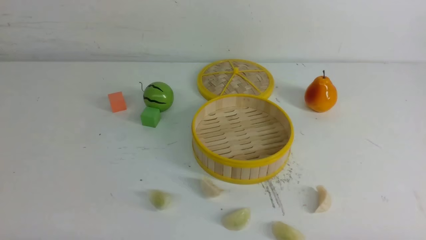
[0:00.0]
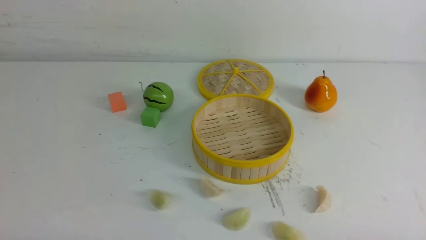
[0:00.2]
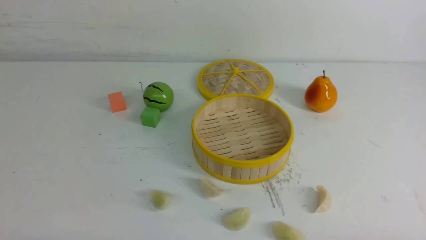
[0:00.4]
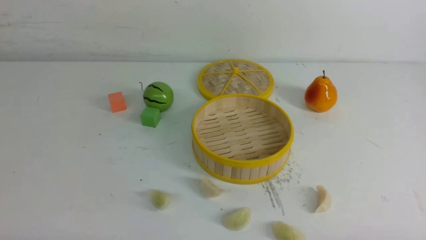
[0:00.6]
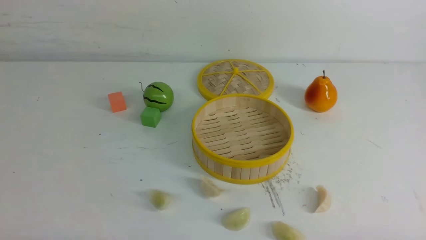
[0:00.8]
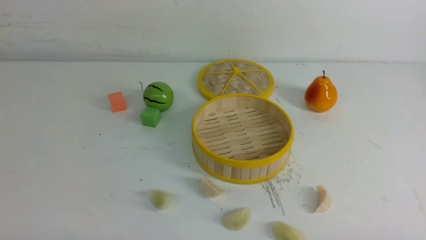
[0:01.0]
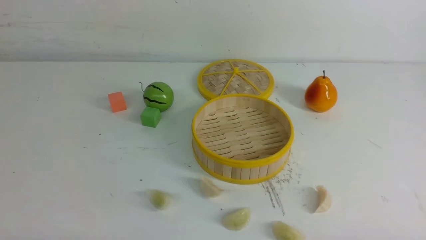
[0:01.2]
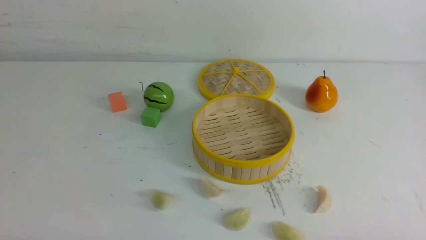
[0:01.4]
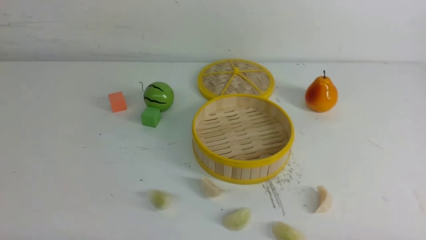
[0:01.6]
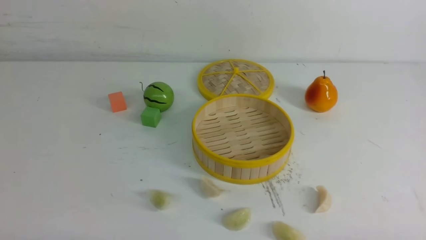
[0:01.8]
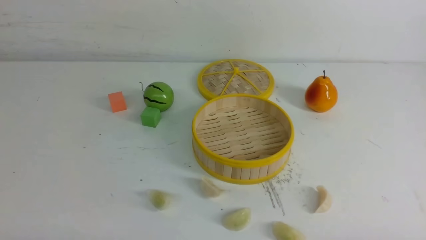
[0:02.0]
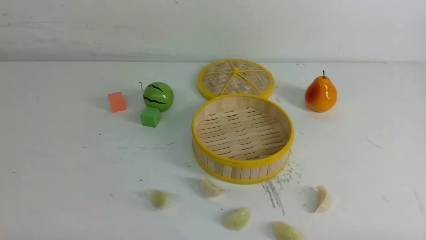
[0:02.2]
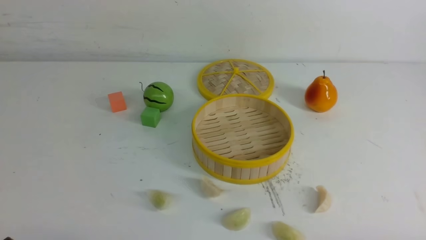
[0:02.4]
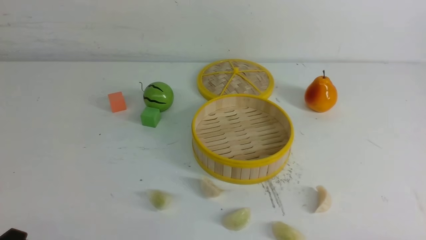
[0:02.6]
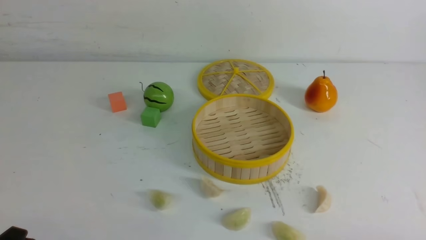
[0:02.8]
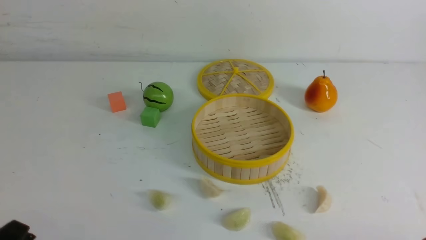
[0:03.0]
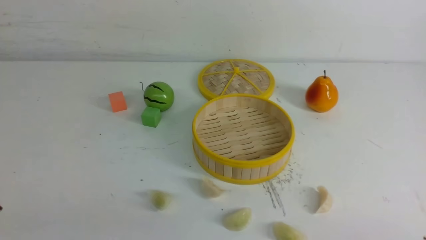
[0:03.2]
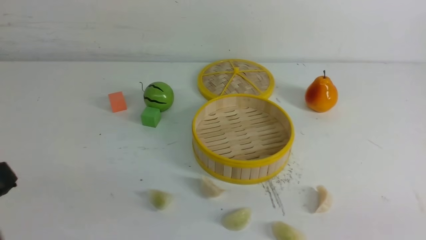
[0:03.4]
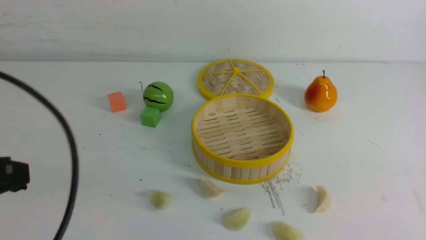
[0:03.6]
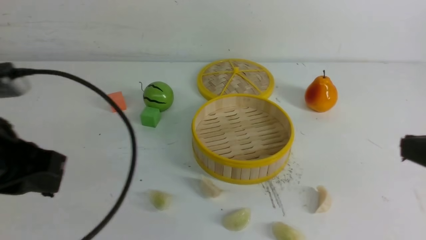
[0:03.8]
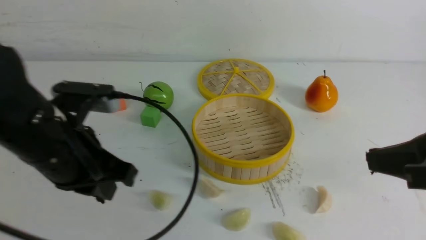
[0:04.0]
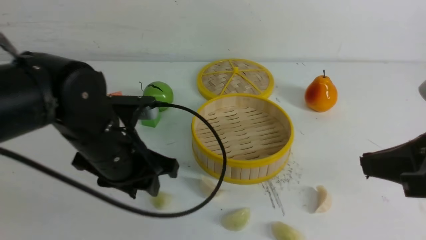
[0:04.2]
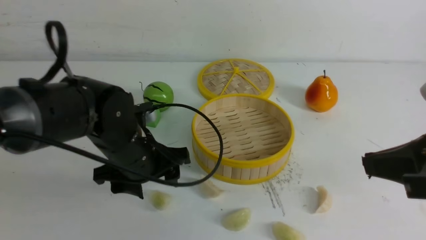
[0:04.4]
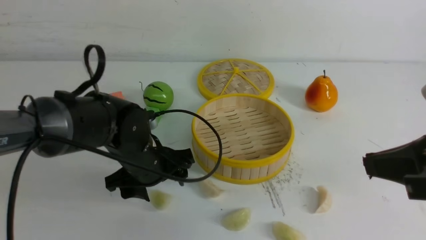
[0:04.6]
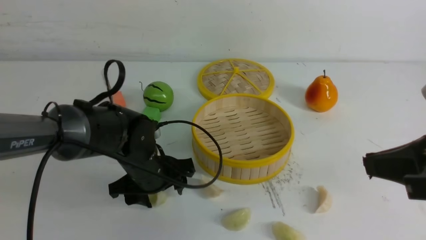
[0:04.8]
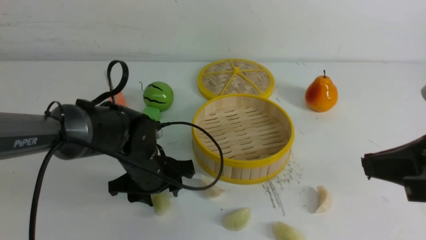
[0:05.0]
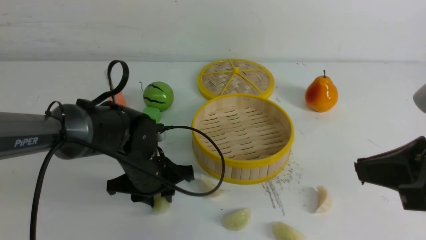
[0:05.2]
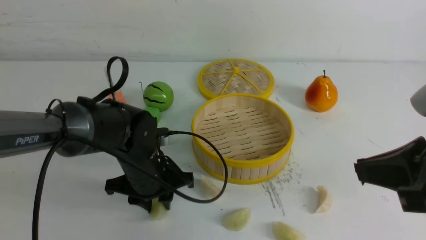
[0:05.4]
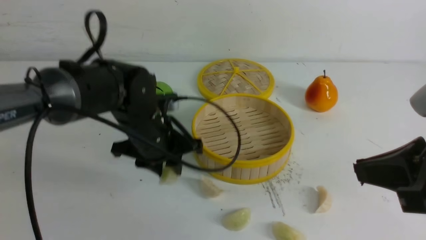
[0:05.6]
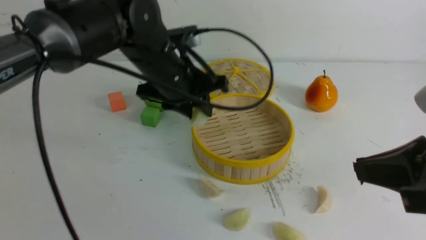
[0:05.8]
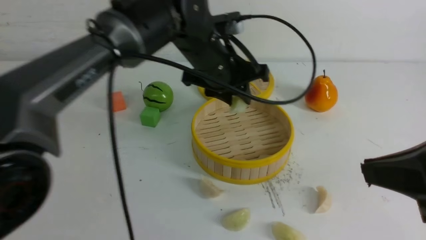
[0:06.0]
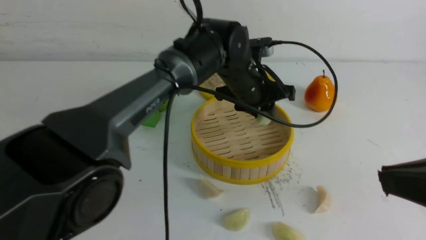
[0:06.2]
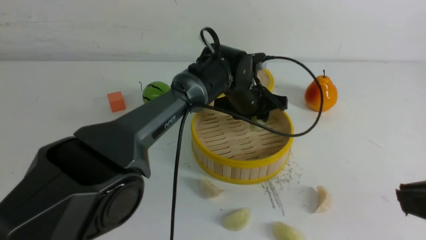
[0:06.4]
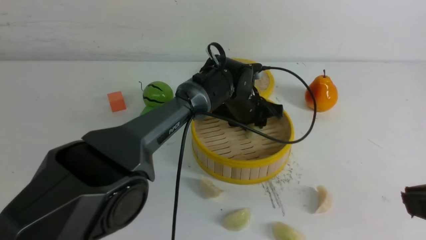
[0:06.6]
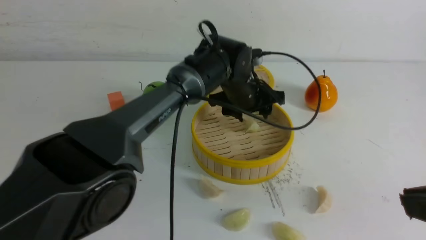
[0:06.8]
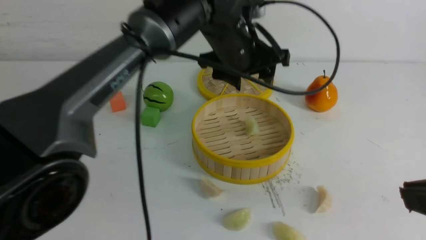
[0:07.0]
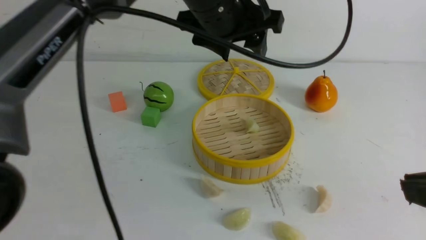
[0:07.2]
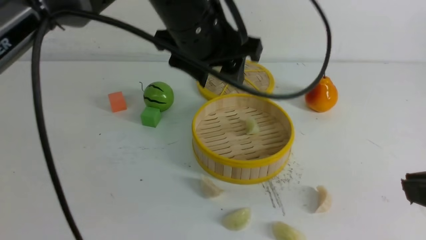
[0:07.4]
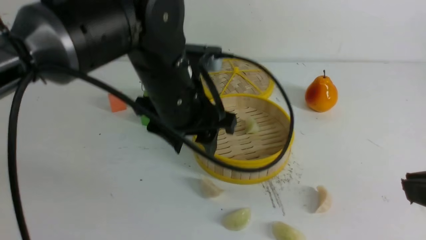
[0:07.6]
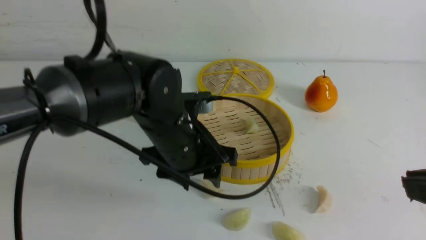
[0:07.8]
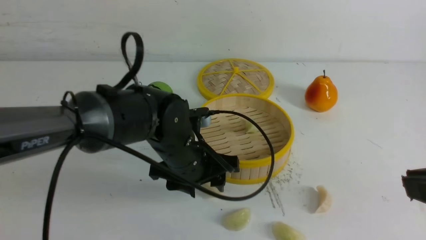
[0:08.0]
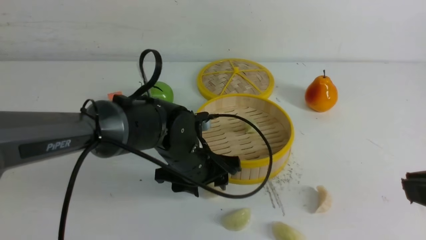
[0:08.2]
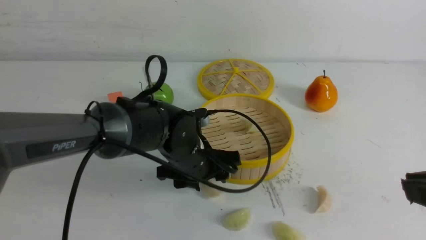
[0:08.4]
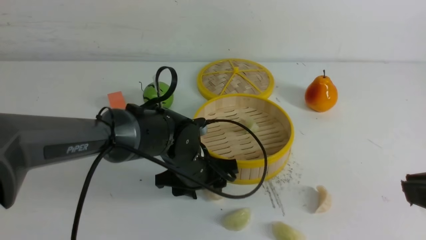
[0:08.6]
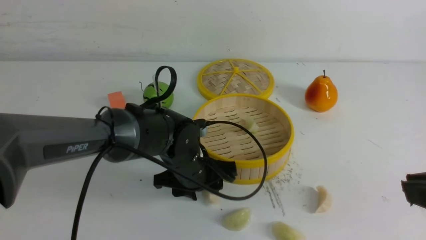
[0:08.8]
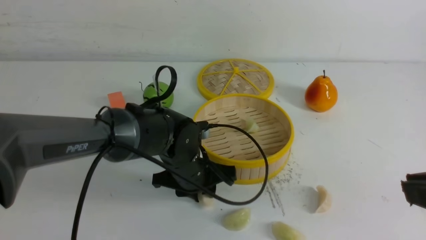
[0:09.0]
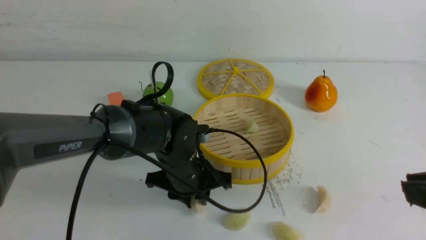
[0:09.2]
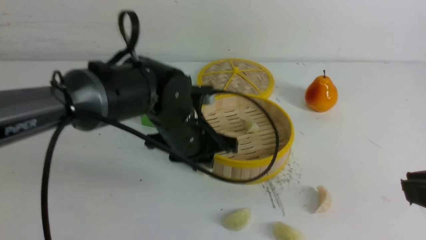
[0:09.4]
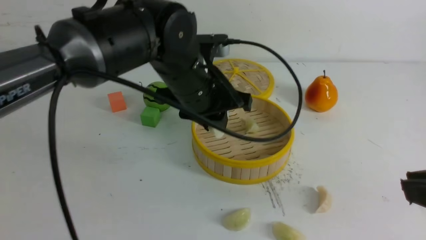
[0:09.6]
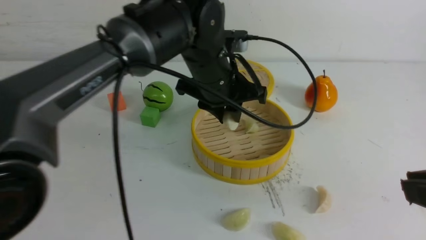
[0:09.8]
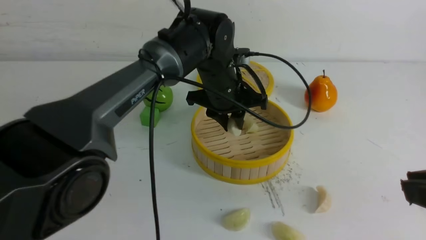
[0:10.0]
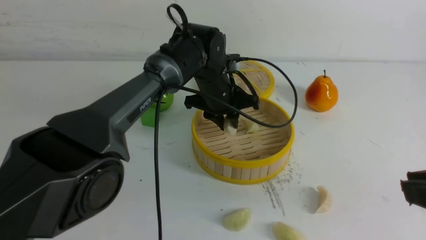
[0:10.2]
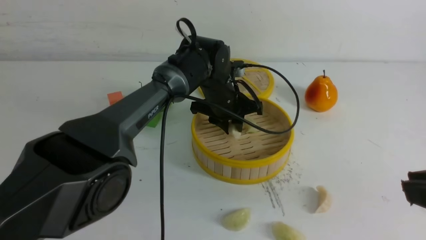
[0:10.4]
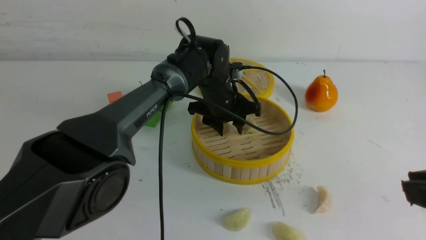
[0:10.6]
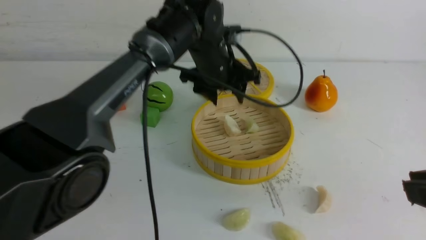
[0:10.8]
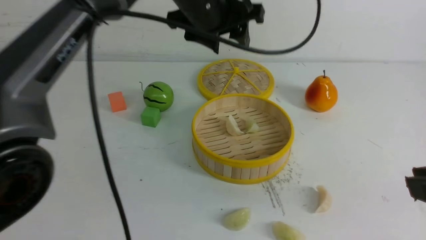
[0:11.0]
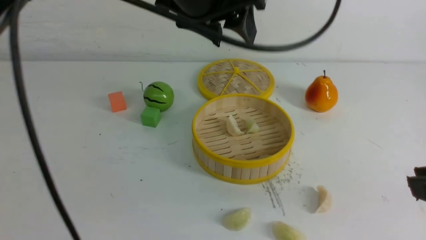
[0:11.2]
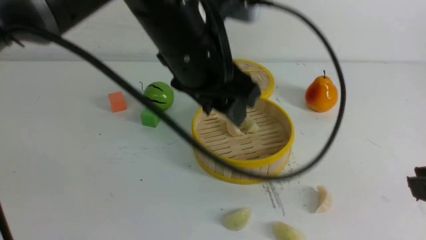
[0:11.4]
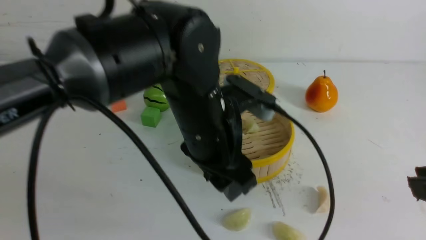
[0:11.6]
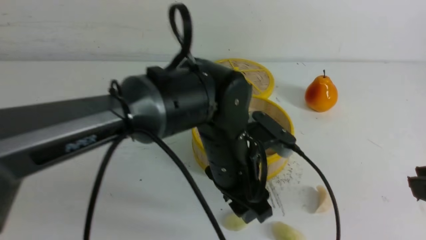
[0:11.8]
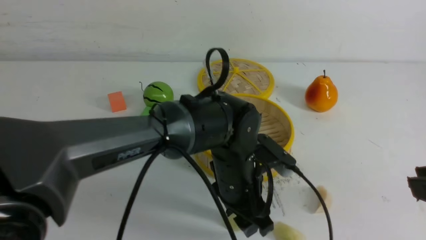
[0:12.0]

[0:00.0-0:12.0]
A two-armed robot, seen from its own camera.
Task of the whole recording: put the dumplings into the steamer on the white table.
Step, 0:00.0 to 0:05.4: use the left arm to grab a dumpling.
Step, 0:05.6 to 0:06.6: use the left arm to put the dumpling into the steamer.
Step, 0:06.8 to 0:09.2: use the left arm to grab a dumpling.
Step, 0:09.4 to 0:10.6: use the left arm to put the dumpling into the steamer.
0:00.0 to 0:01.6: Both grippers stay put.
0:03.0 to 0:04.4: The left gripper heads forward and to the right, covering roughly 30 cm, and opens. Meanwhile the right gripper travels upward and forward by some 20 cm, and closes.
0:04.4 to 0:06.0: The left gripper heads to the right, forward and upward, covering roughly 15 cm, and closes.
0:06.0 to 0:07.6: The left gripper swings up and down, about 20 cm each way, with 2 reversals, and opens up.
0:07.6 to 0:09.0: The left gripper is displaced downward by approximately 15 cm, and closes up.
0:09.0 to 0:10.4: The left gripper shifts approximately 15 cm forward.
0:10.4 to 0:12.0: The left gripper is displaced backward by approximately 15 cm, and goes upward and returns, about 20 cm each way.

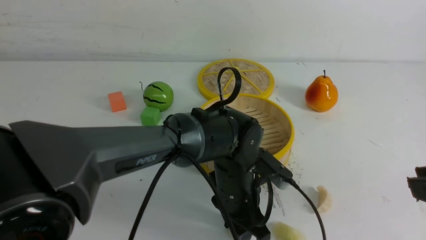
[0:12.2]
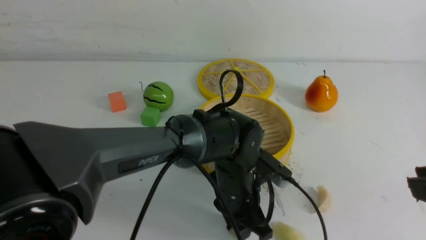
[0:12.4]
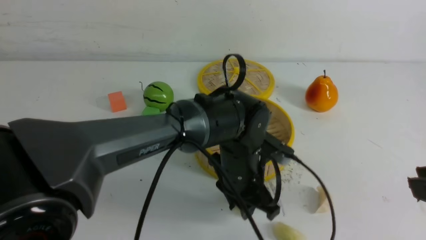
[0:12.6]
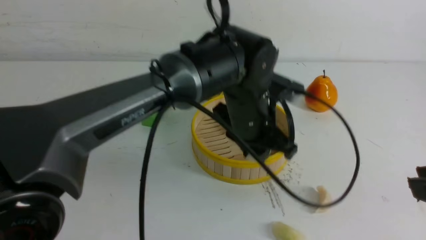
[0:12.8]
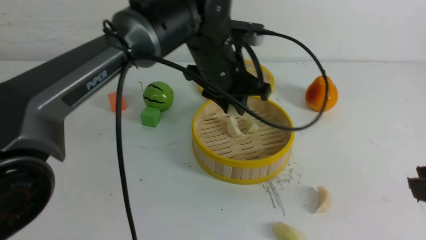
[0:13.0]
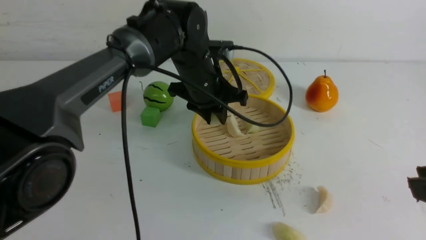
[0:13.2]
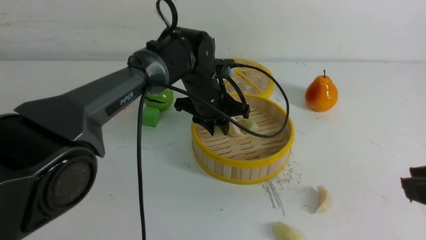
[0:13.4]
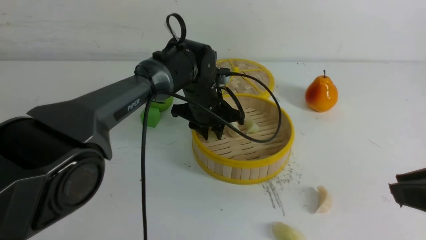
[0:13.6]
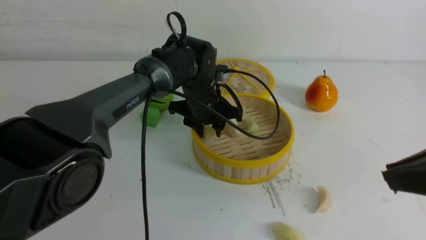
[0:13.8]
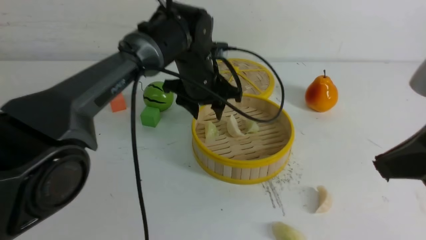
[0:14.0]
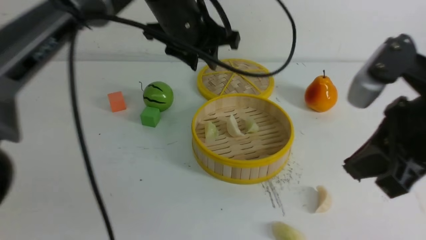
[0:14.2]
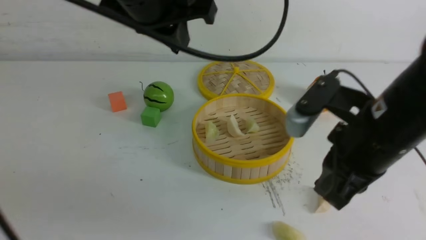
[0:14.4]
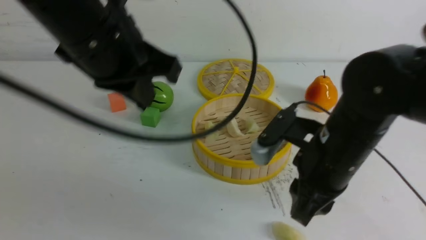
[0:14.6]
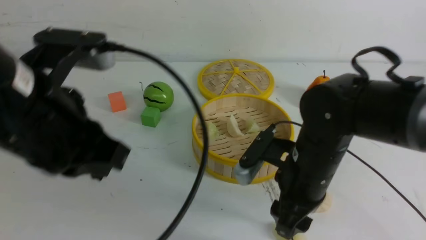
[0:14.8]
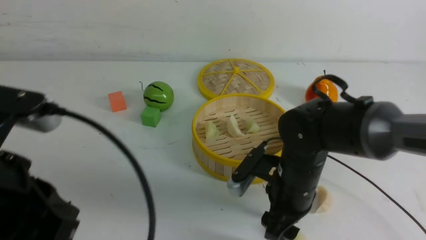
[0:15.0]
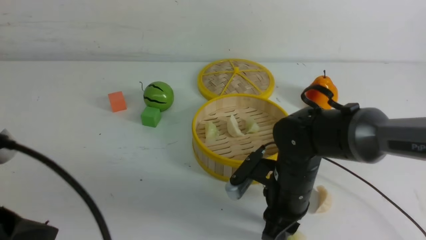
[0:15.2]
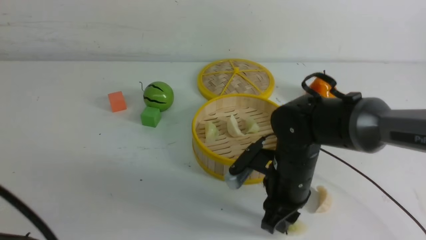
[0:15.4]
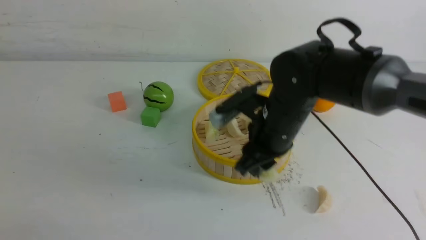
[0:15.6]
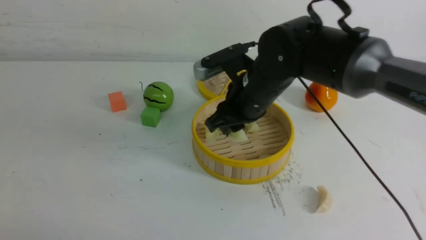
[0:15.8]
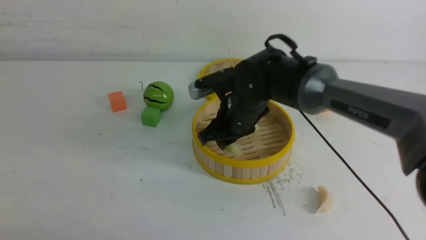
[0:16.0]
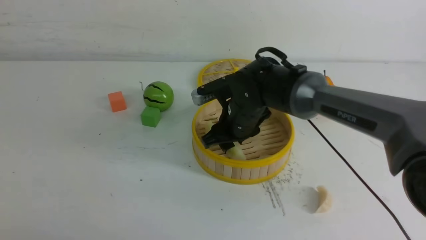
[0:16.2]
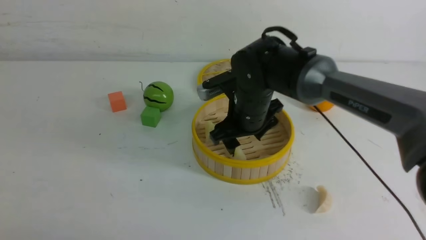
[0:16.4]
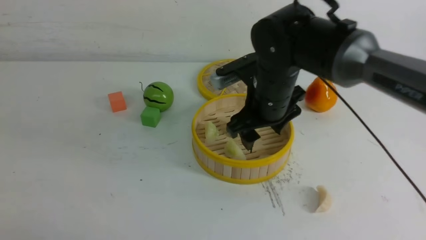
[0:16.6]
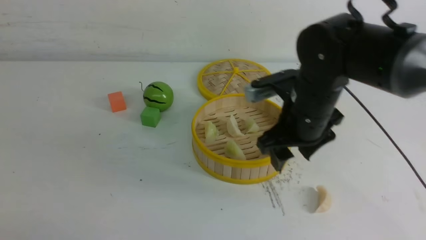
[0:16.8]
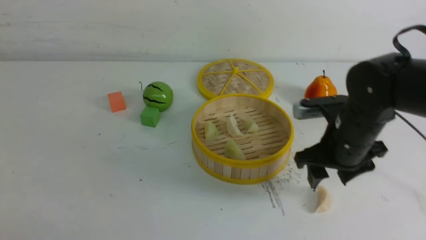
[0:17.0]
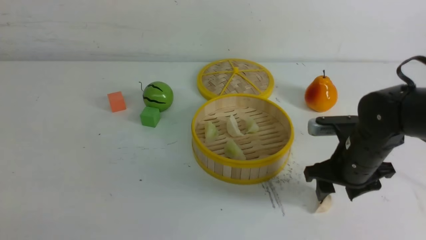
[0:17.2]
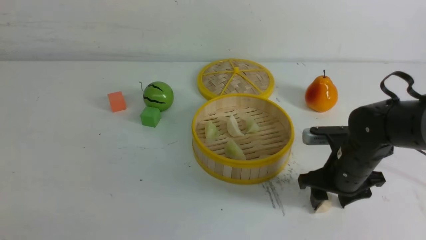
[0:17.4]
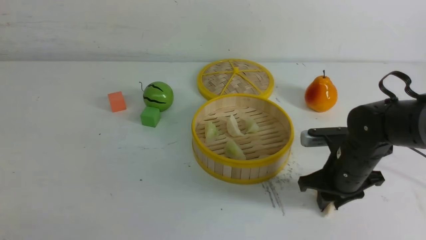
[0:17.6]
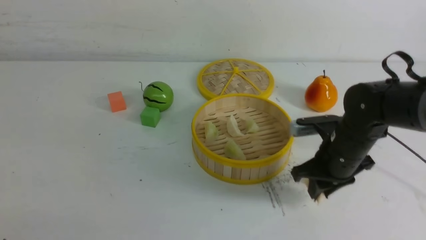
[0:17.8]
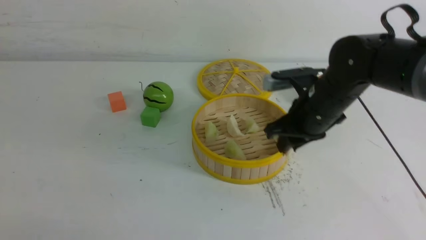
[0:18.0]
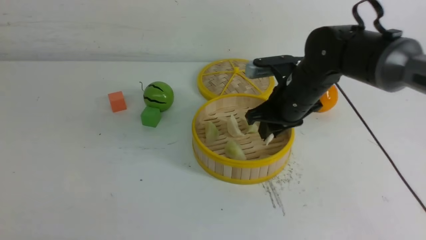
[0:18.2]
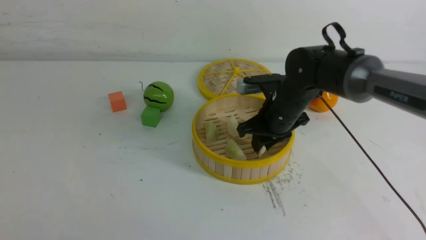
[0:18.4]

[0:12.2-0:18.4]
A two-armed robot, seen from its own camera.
Task of the whole recording: put the dumplings into the steamer on the white table.
Step, 0:12.6 to 0:13.8: use the left arm to put the dumpling into the steamer.
Step, 0:14.0 to 0:15.2: use the right arm to grab a dumpling.
Step, 0:15.4 to 0:16.2: use the right arm to put the dumpling into the steamer.
Step, 0:16.4 to 0:17.6: use the right arm to grab a dumpling.
0:12.2 to 0:13.8: The left gripper moves forward and upward, about 15 cm; the right gripper moves approximately 5 cm.
0:13.8 to 0:15.4: The left gripper moves backward and to the left, approximately 40 cm, and closes up, while the right gripper moves downward, forward and to the left, roughly 25 cm.
0:15.4 to 0:16.8: The right gripper moves upward, approximately 5 cm, and opens.
0:16.8 to 0:18.4: The left gripper changes place by roughly 5 cm; the right gripper heads forward, covering some 5 cm, and closes.
